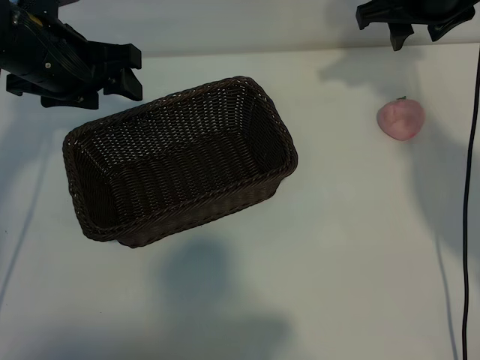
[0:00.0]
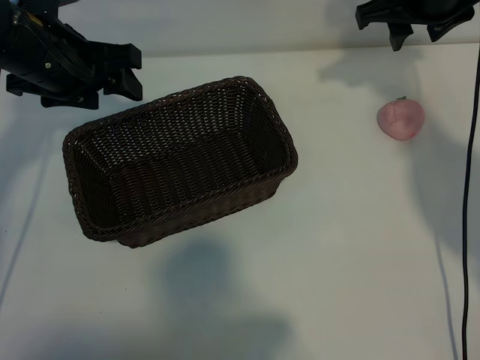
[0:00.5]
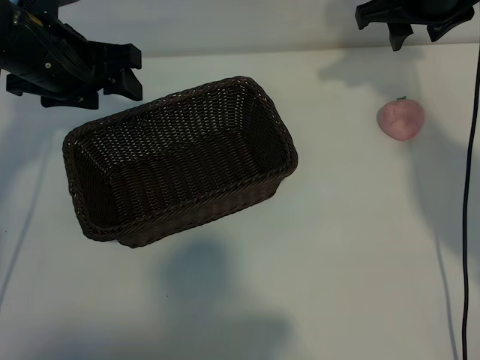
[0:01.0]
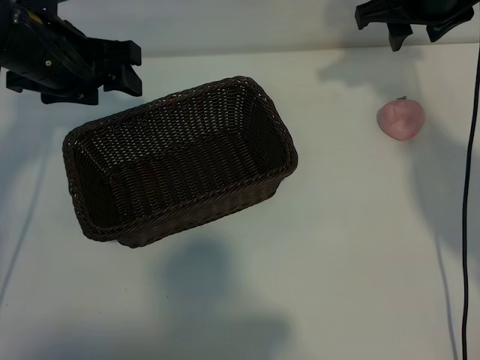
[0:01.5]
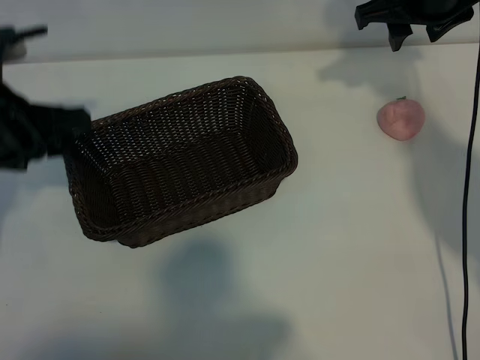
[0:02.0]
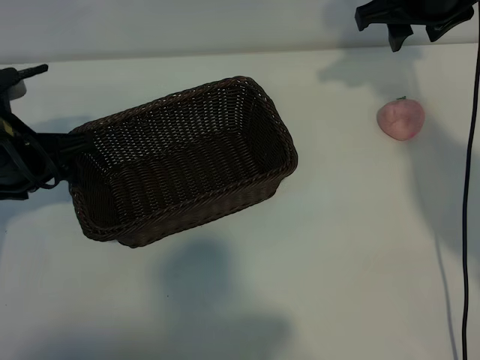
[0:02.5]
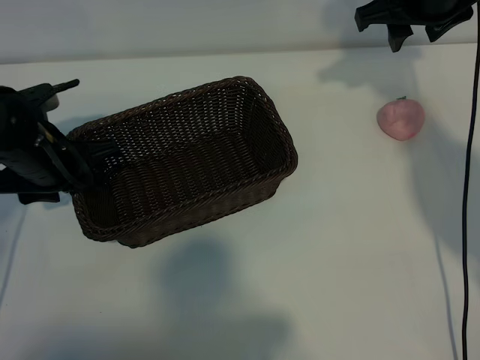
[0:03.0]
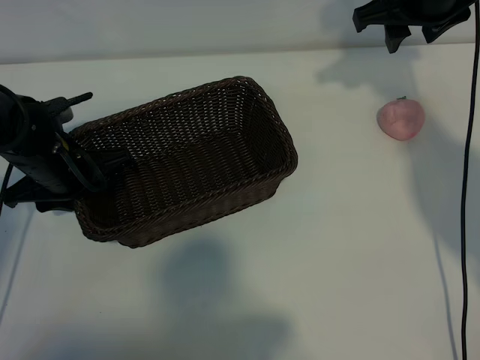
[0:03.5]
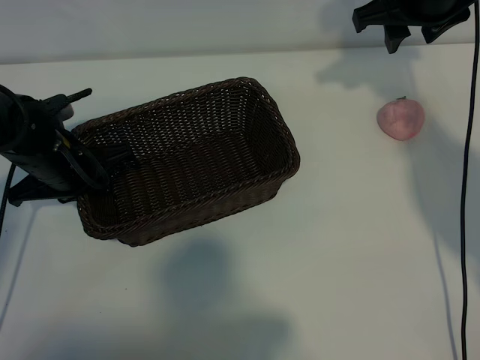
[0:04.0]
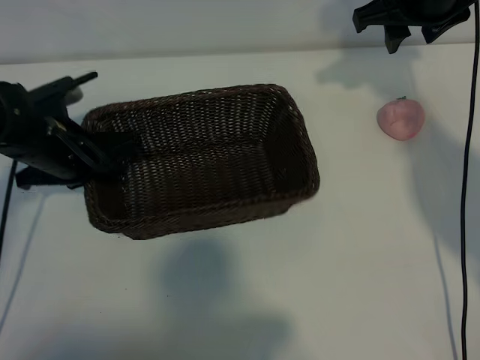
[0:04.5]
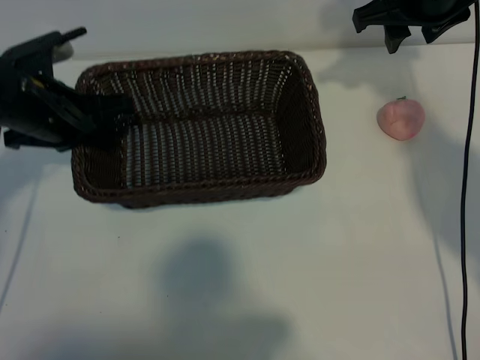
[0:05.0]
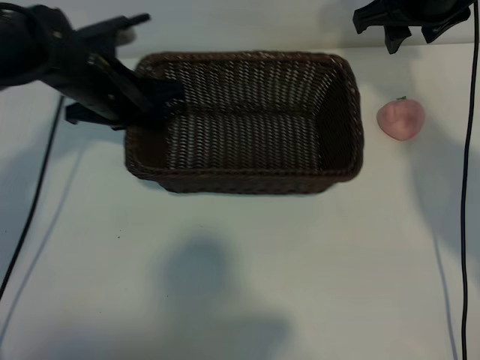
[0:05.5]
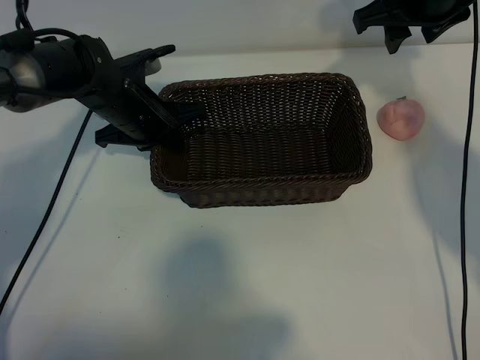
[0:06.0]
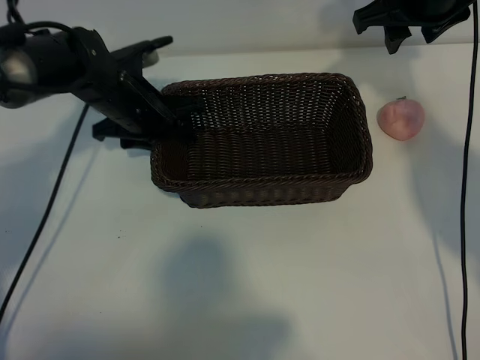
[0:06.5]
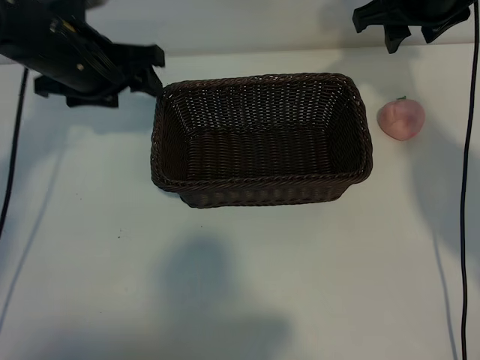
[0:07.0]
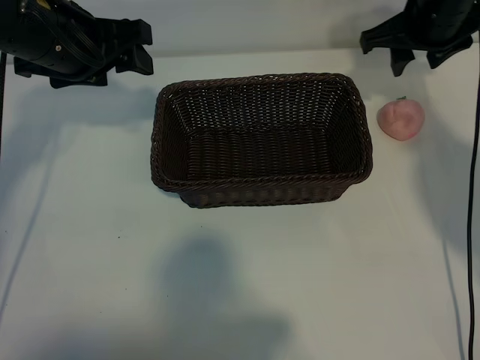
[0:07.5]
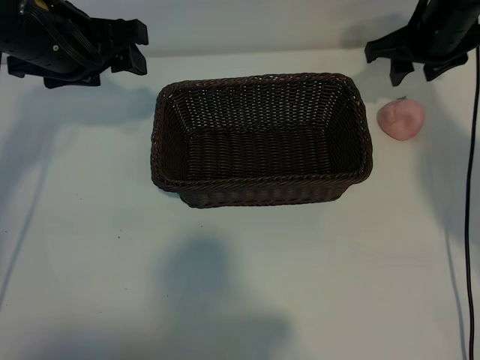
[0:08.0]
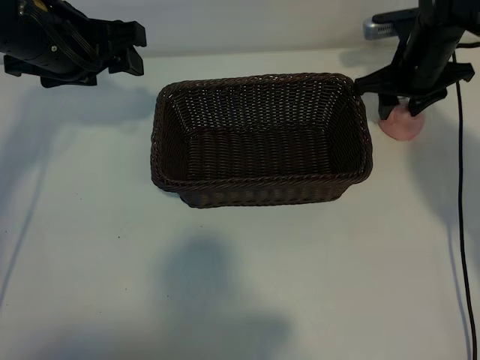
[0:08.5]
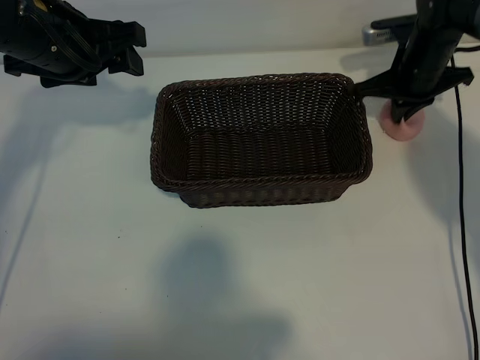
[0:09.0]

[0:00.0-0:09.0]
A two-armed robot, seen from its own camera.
Task of the whole recording: pick up the peach and put it into the basket.
Step, 0:01.5 to 0:04.0: Grasp the basket with left gripper.
Step, 0:04.5 to 0:06.5: Place the basket in the center of view with left gripper.
Step, 0:07.0 to 0:09.0: Grasp the peach with right gripper.

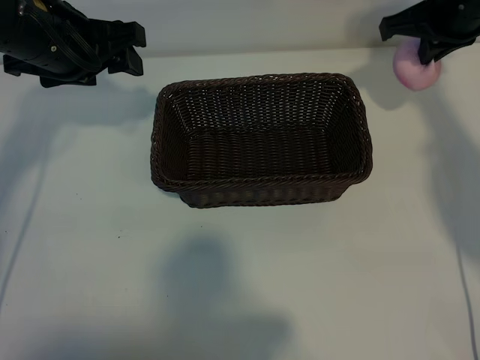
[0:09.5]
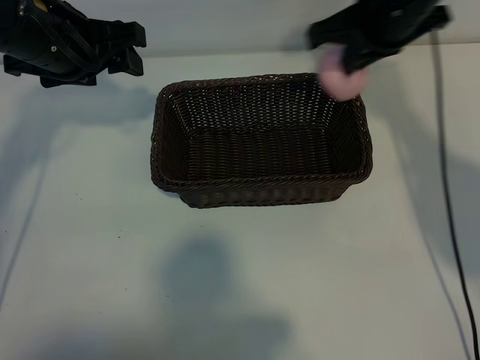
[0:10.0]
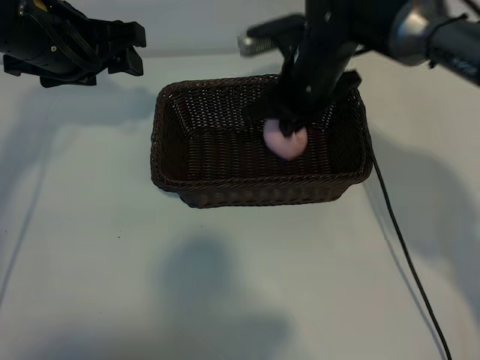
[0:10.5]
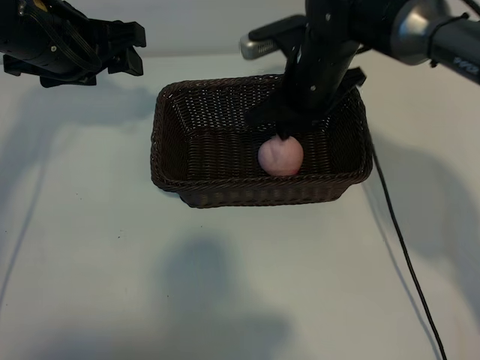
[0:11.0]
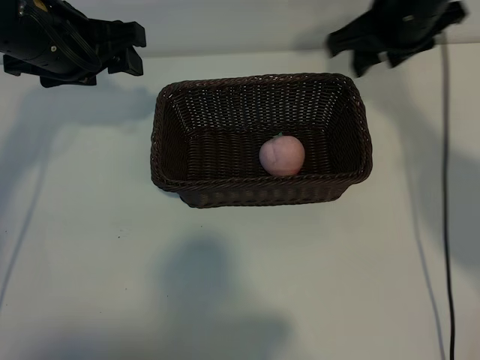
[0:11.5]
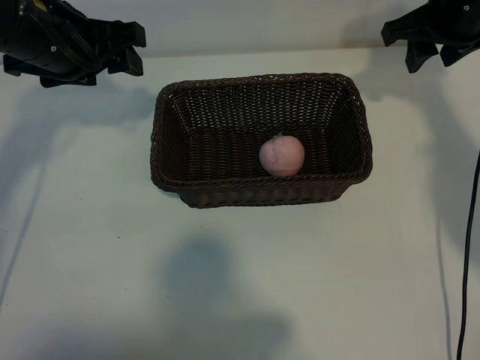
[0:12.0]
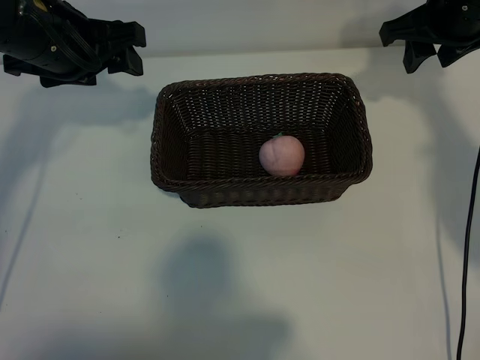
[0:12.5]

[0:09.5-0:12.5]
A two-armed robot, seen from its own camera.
Task of the whole recording: pick up the peach and put it into the basket.
Step, 0:09.5 to 0:10.5: Place the peach in the basket with right gripper.
